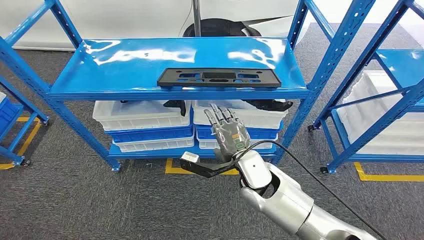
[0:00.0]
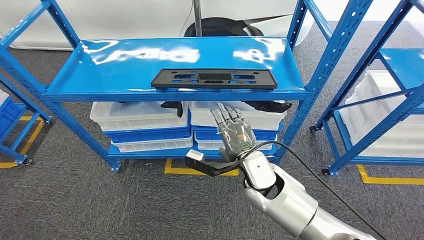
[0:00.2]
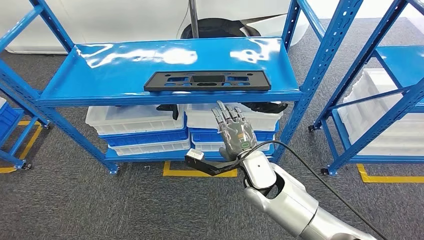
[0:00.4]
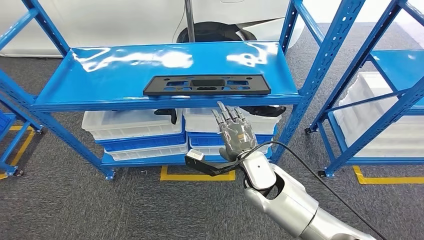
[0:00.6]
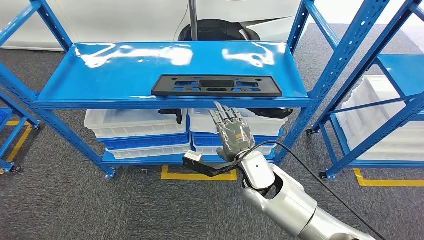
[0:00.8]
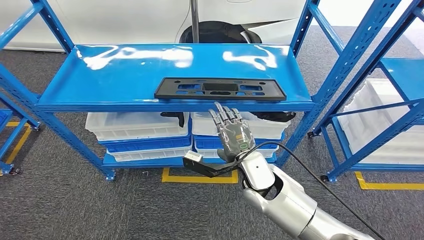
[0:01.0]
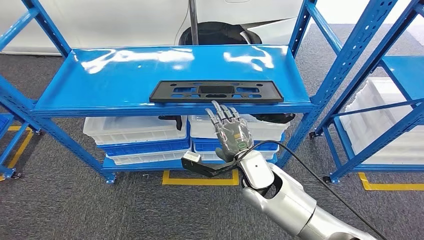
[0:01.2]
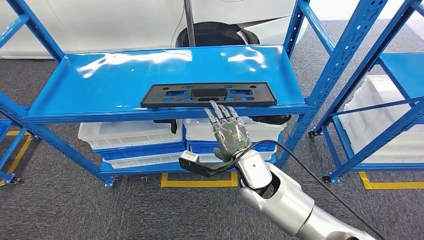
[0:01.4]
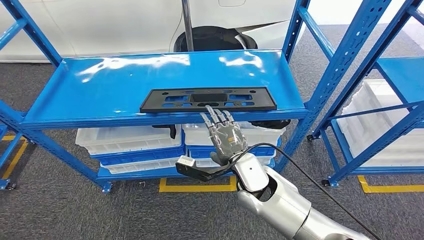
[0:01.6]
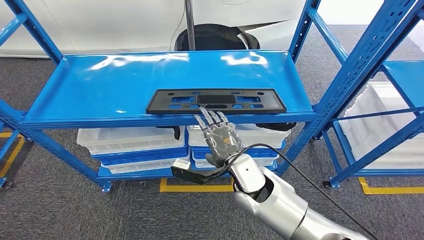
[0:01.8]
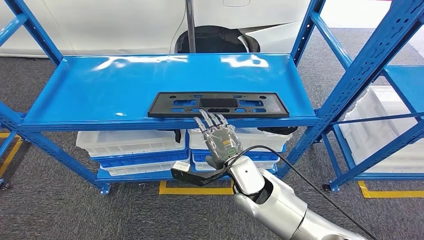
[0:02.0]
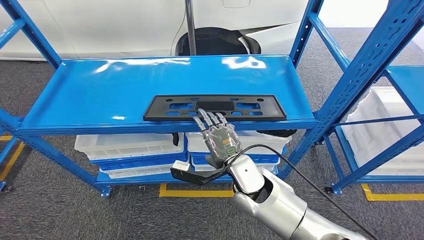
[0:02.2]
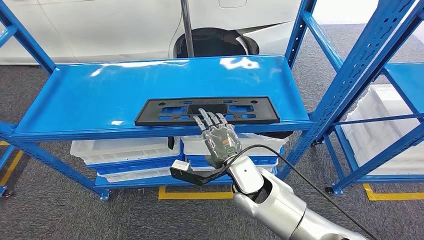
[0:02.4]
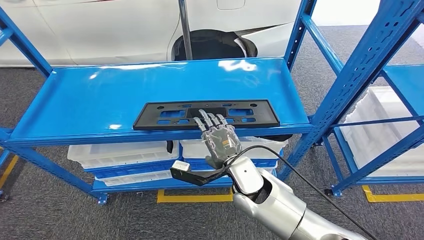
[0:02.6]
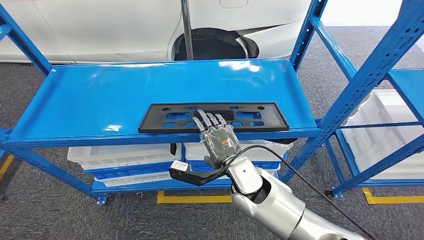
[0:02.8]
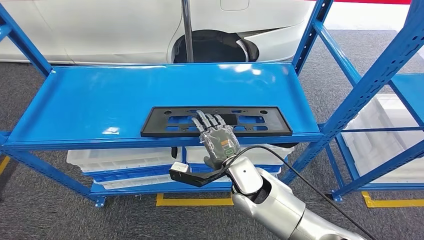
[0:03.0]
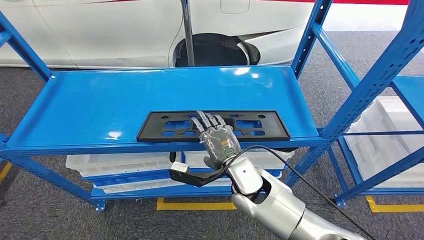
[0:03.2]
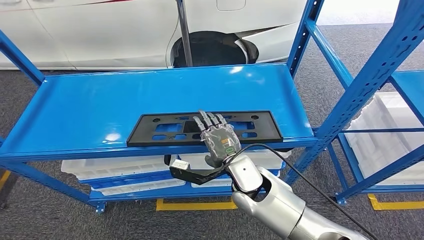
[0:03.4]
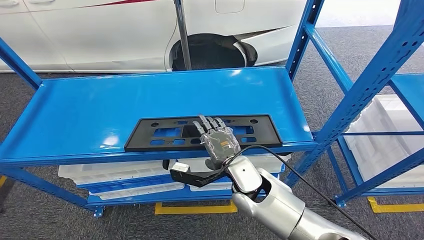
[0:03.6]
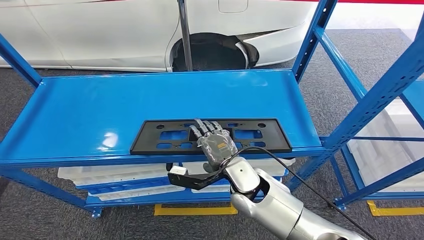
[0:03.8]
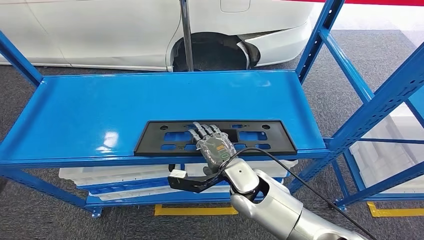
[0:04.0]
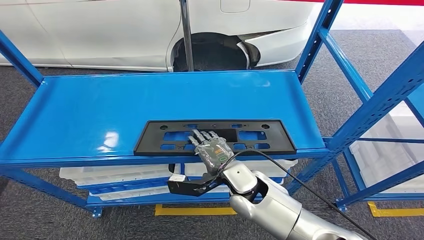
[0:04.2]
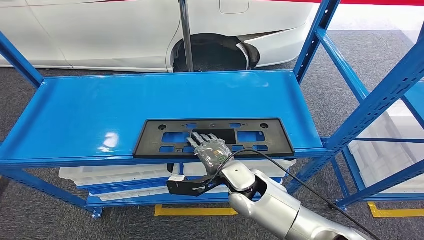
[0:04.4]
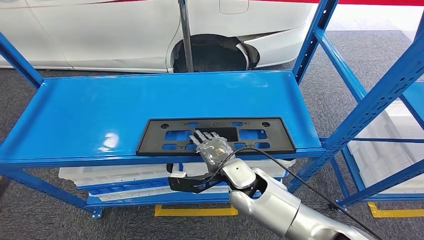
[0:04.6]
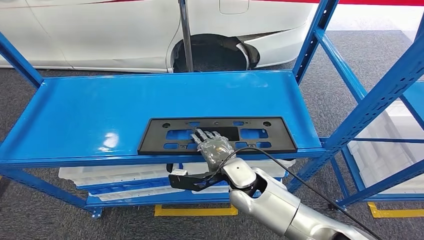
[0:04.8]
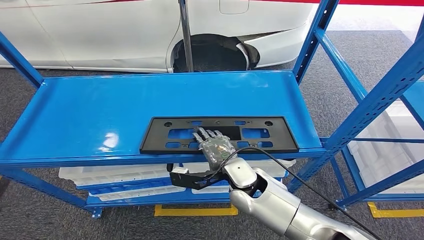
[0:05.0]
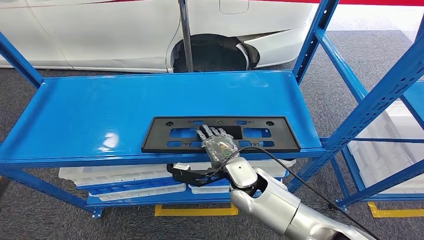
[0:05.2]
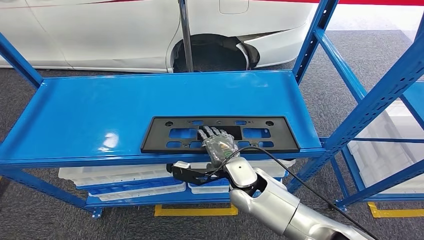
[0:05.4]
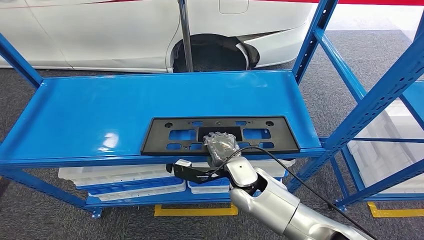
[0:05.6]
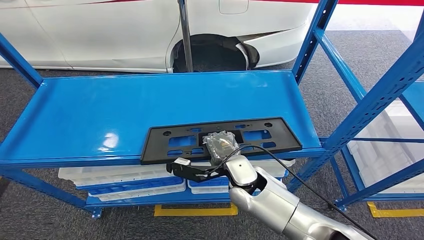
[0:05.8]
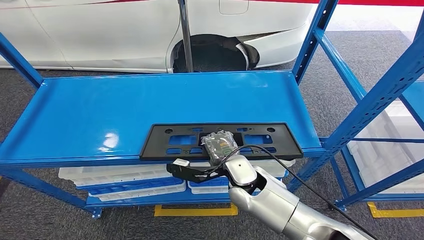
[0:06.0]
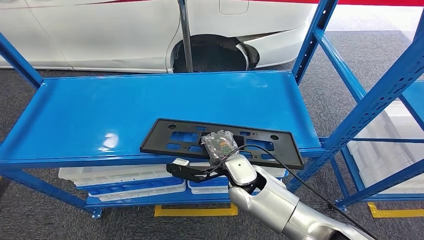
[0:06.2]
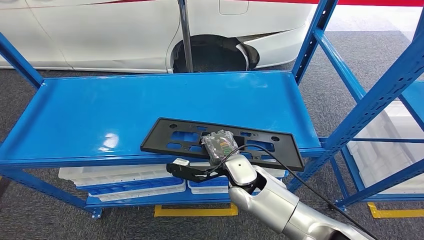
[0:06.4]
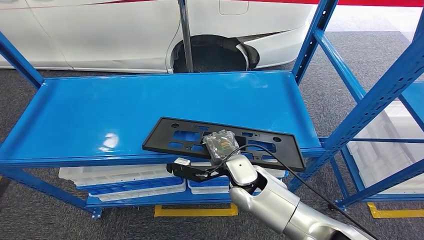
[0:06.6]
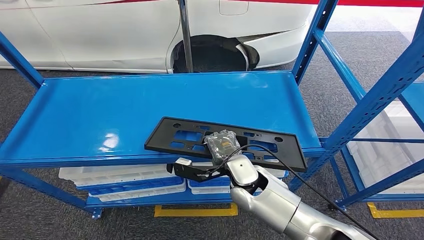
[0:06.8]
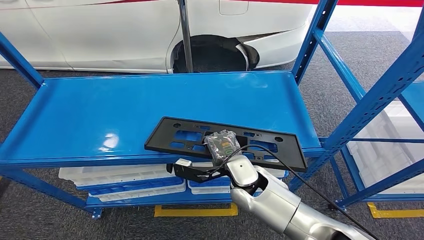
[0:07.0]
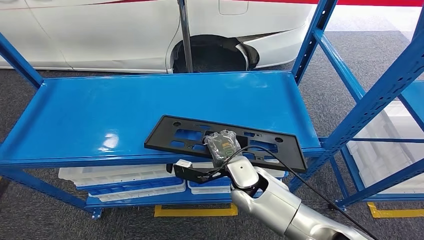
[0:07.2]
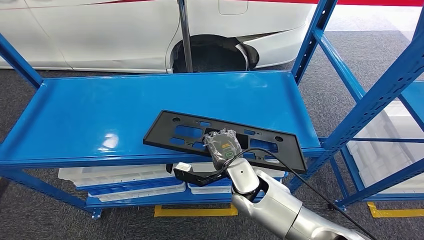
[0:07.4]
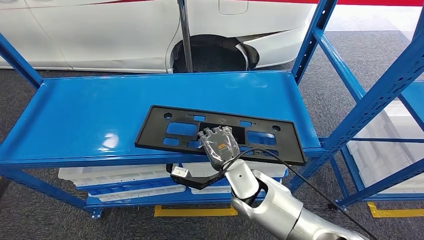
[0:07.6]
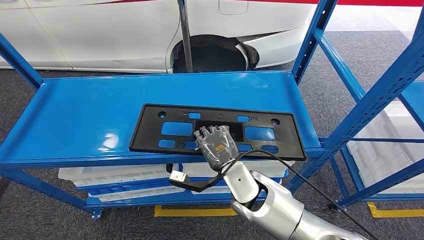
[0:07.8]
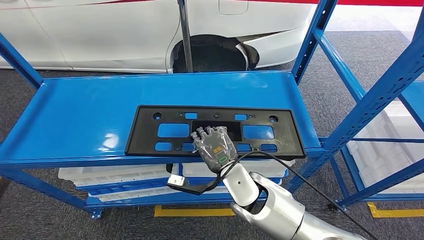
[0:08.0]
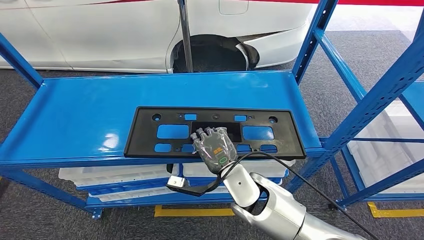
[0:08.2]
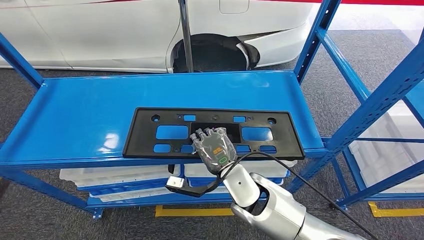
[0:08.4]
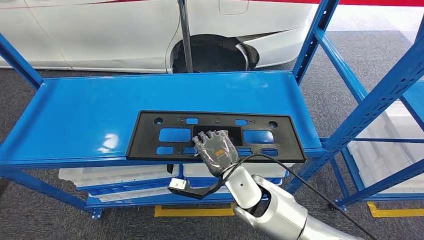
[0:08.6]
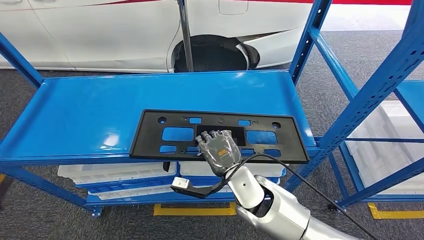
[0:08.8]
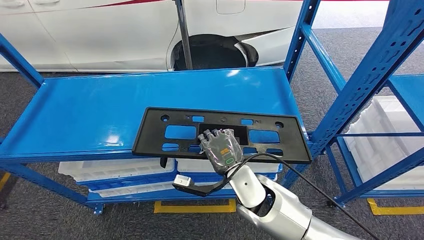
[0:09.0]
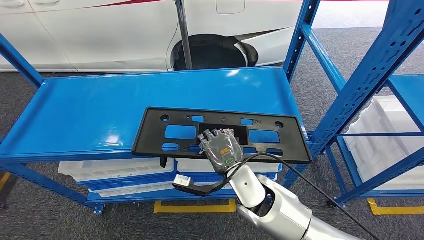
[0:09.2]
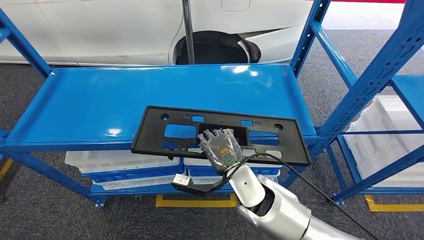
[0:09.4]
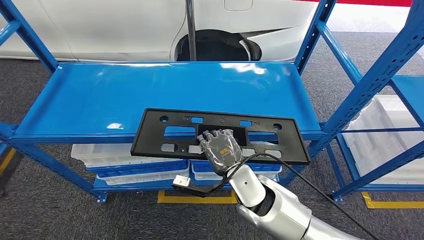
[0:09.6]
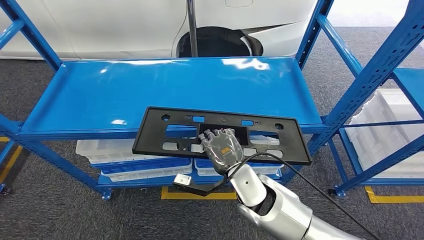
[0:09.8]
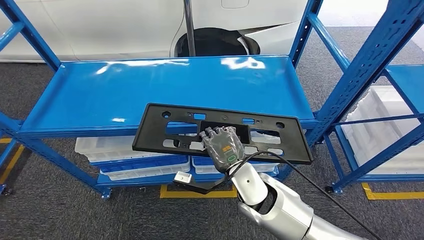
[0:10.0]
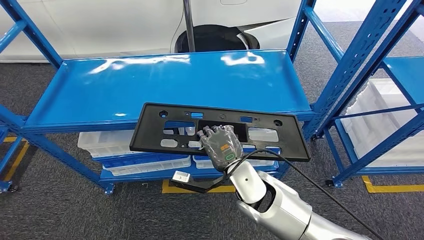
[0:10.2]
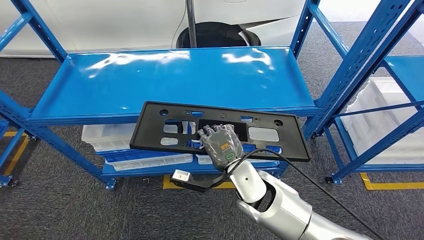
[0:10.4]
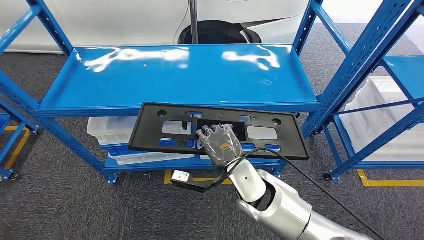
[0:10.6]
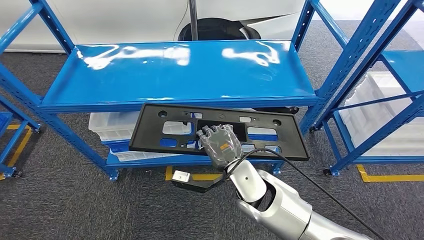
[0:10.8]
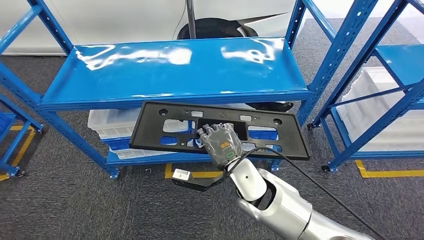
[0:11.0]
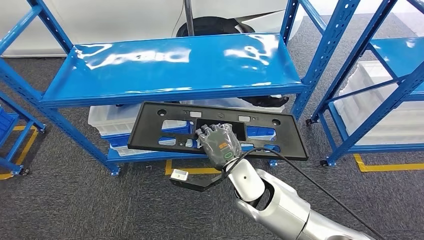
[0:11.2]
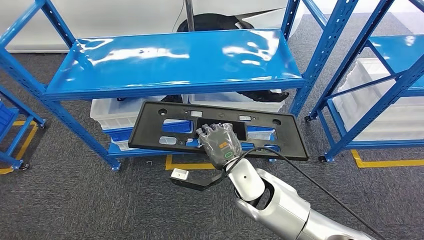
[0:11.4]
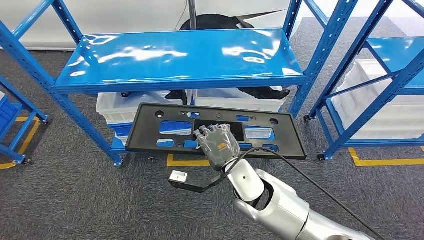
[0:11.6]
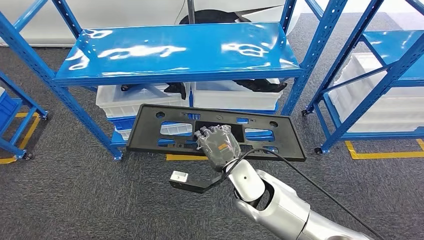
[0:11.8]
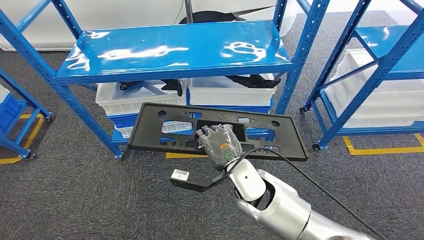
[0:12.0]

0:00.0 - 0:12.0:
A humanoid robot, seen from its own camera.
Step, 0:00.0 - 0:08.4: Pick up the large material from the shelf.
0:04.4 - 0:06.0: The hands make only small movements.

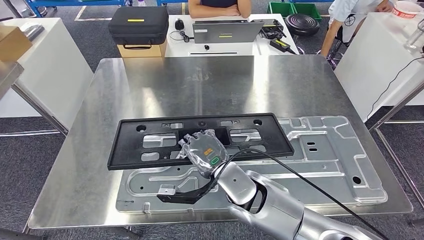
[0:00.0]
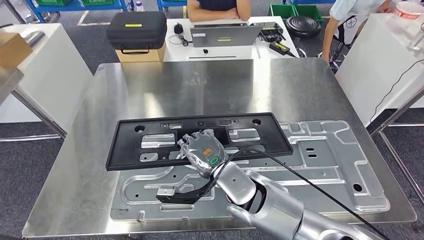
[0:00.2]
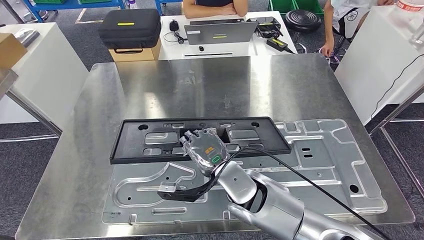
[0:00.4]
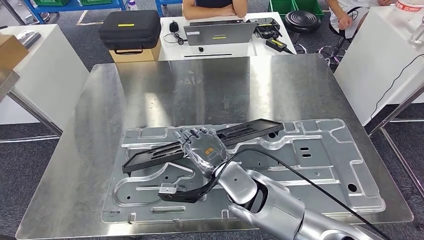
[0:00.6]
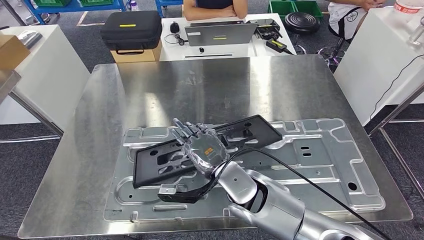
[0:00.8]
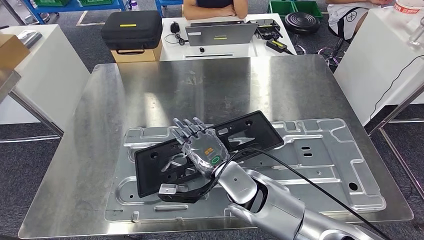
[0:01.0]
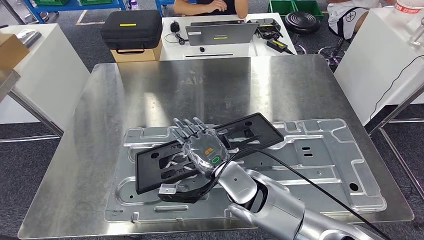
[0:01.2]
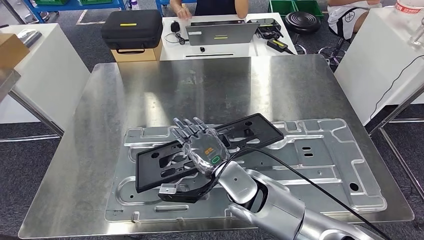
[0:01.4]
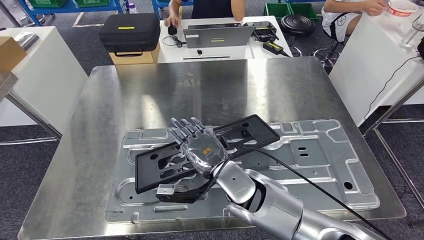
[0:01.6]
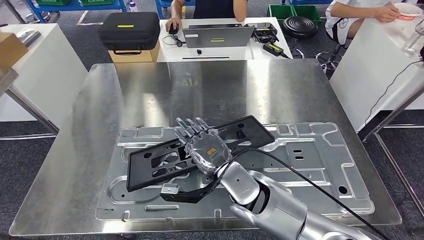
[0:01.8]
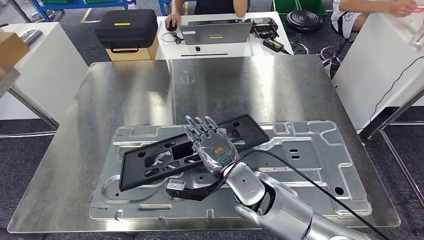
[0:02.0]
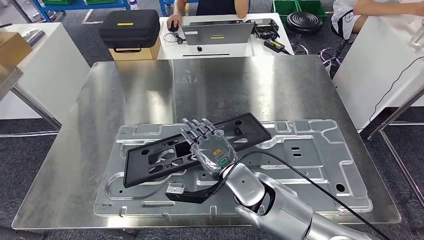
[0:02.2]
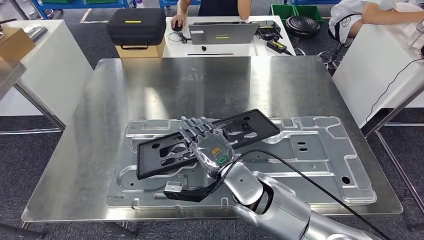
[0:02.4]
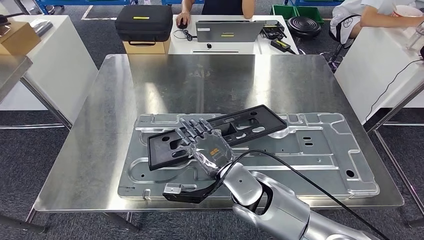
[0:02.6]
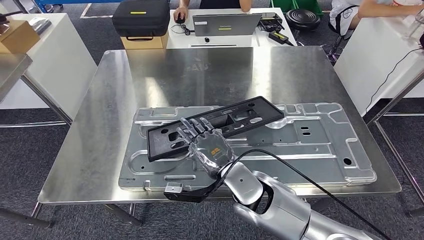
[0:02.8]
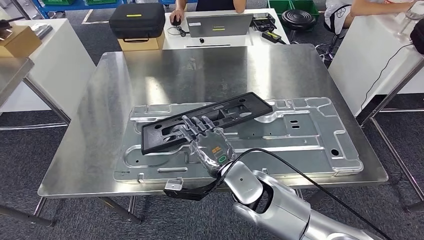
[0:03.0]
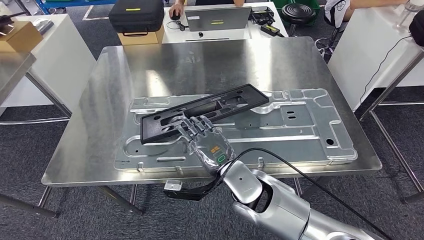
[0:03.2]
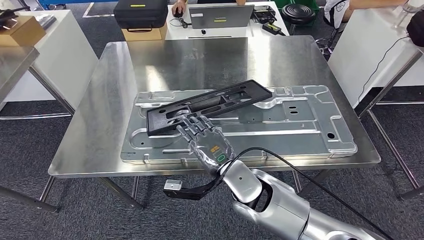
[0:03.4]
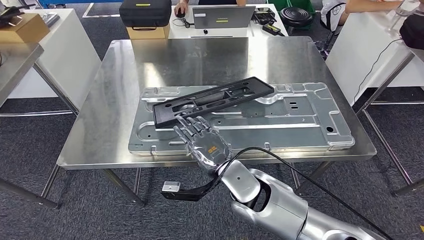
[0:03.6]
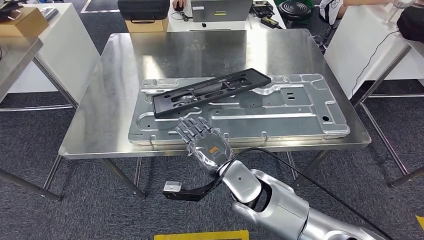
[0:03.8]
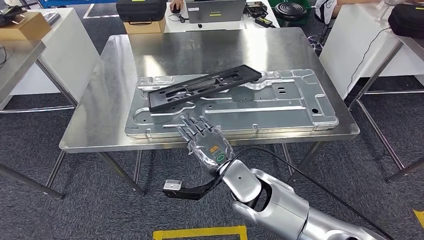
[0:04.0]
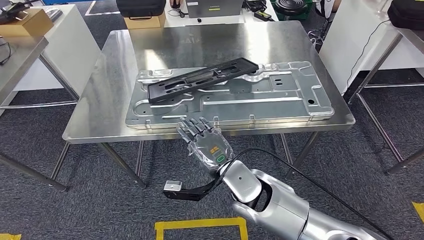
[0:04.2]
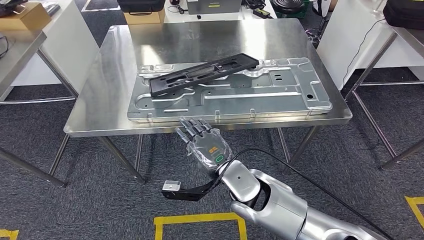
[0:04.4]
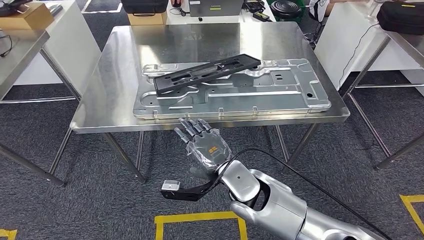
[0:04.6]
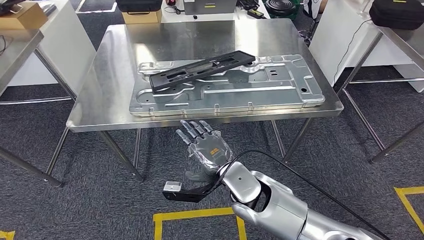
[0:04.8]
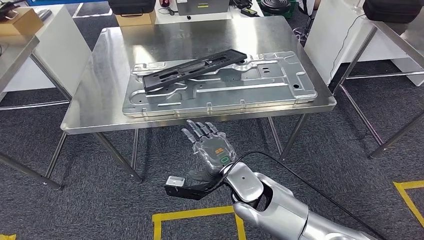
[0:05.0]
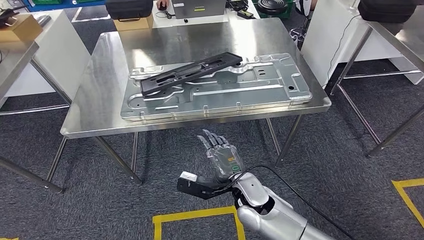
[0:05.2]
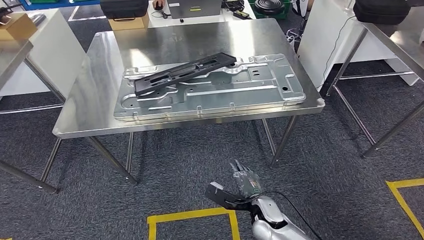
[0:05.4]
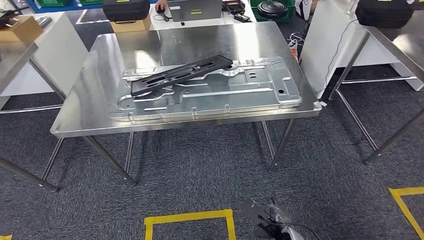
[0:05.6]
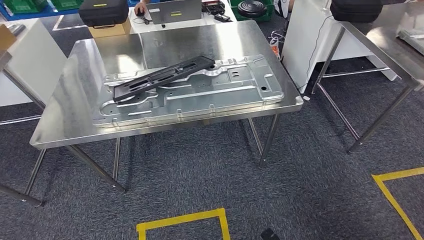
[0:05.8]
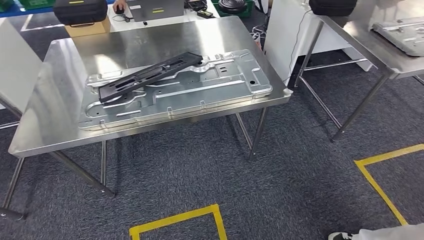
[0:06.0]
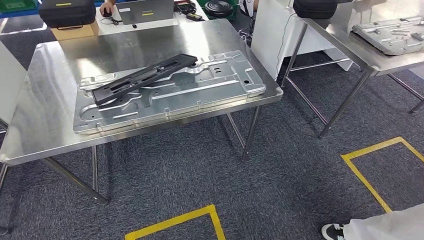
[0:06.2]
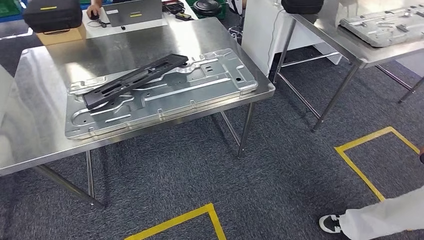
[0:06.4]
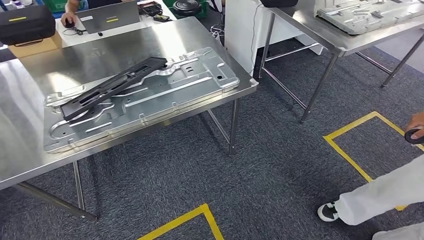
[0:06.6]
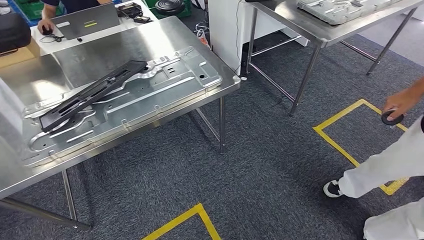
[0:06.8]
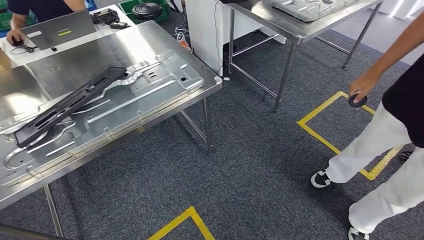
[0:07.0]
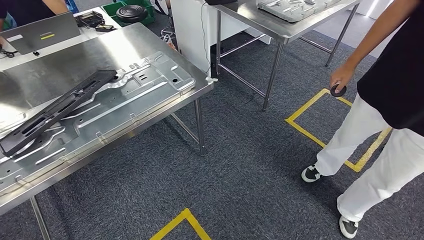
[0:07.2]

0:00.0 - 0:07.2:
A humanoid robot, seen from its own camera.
Step, 0:00.0 - 0:02.8: Insert the large material into the corresponding slot on the workbench.
